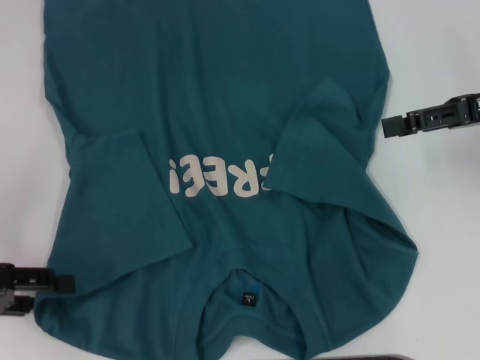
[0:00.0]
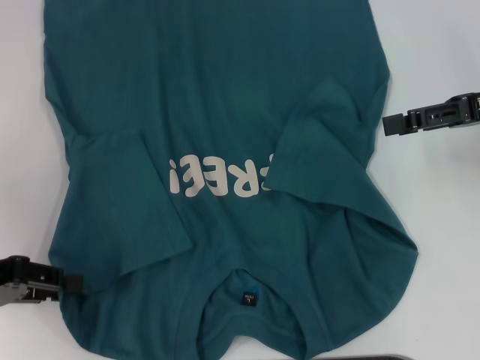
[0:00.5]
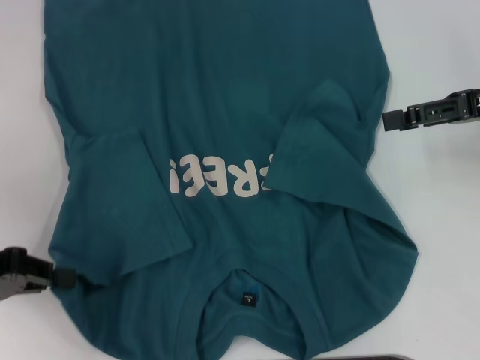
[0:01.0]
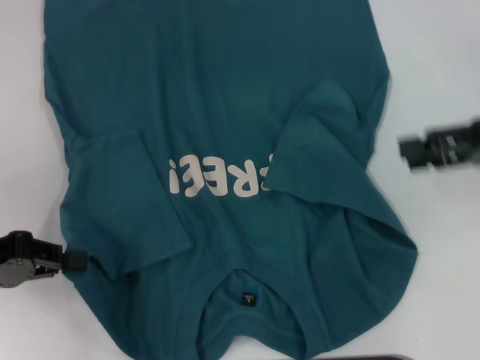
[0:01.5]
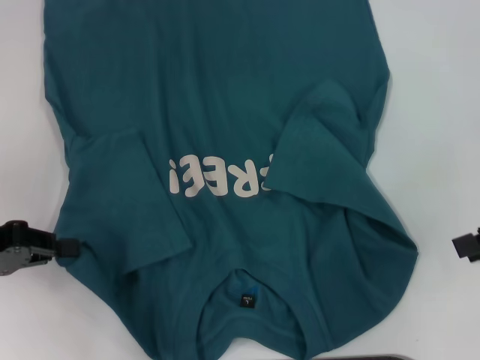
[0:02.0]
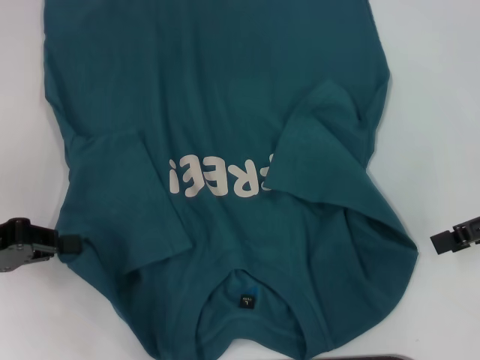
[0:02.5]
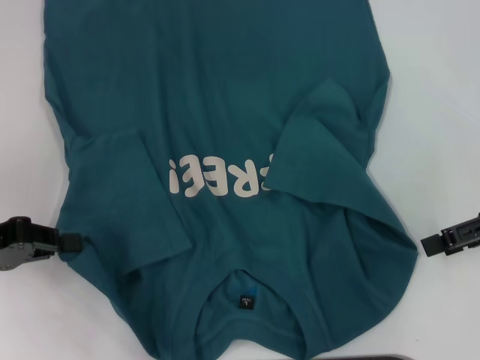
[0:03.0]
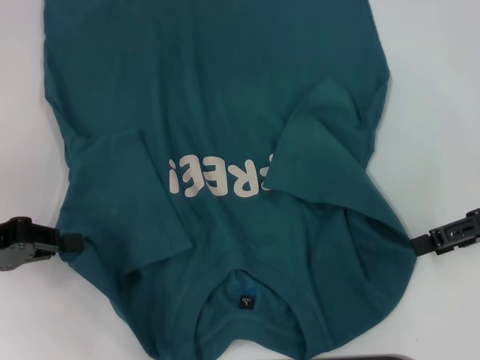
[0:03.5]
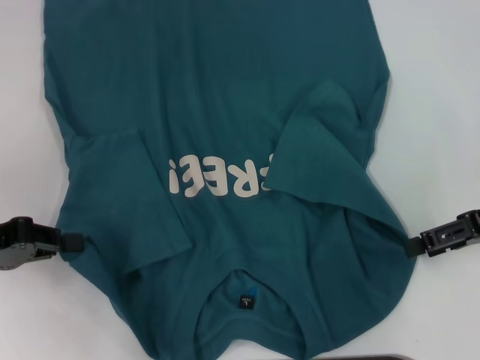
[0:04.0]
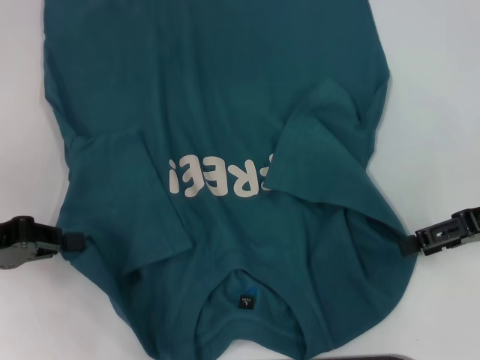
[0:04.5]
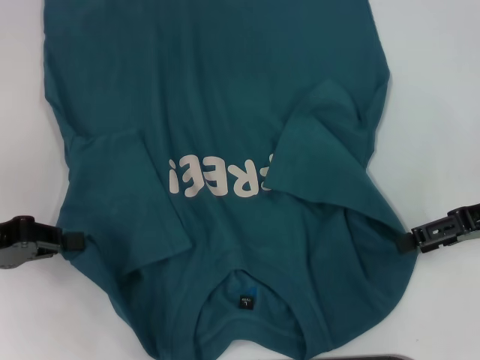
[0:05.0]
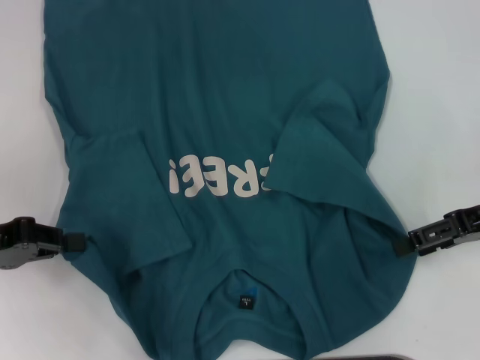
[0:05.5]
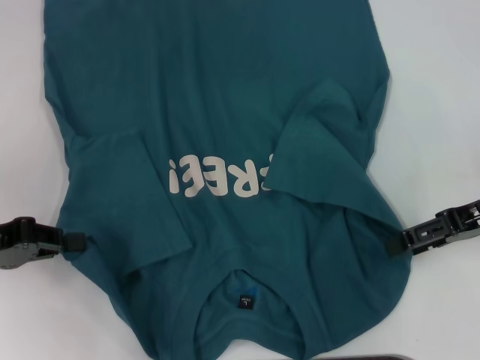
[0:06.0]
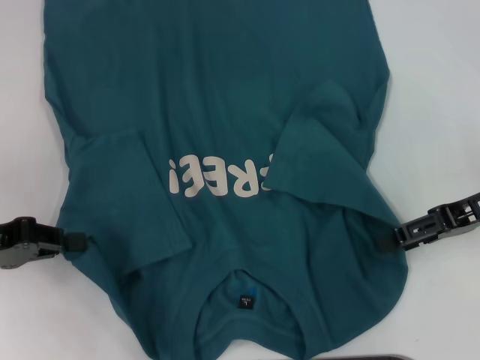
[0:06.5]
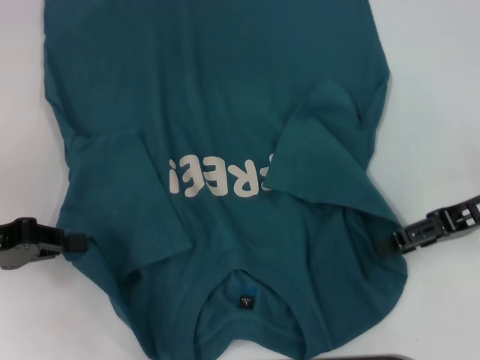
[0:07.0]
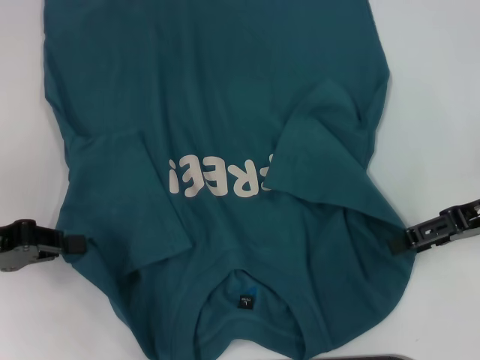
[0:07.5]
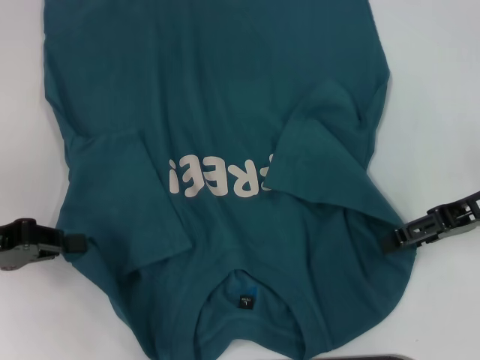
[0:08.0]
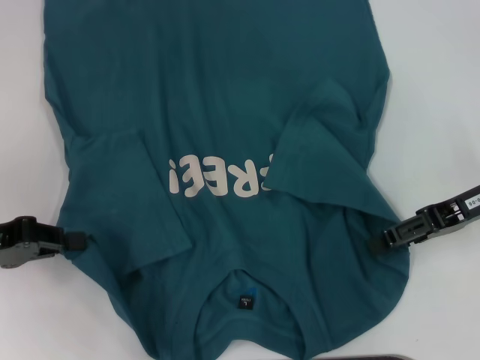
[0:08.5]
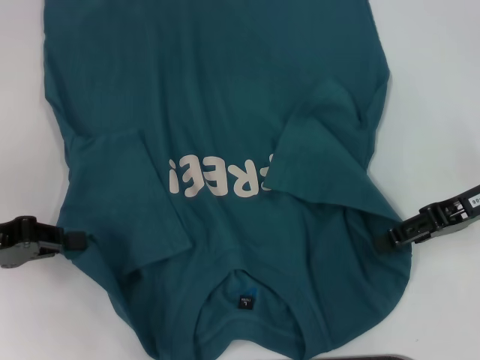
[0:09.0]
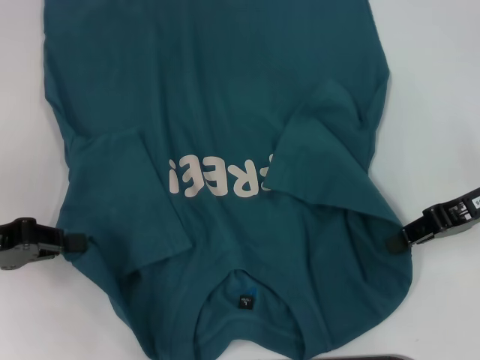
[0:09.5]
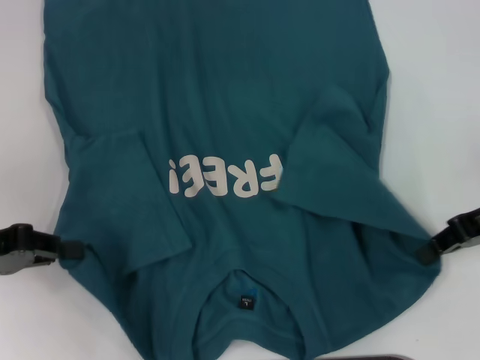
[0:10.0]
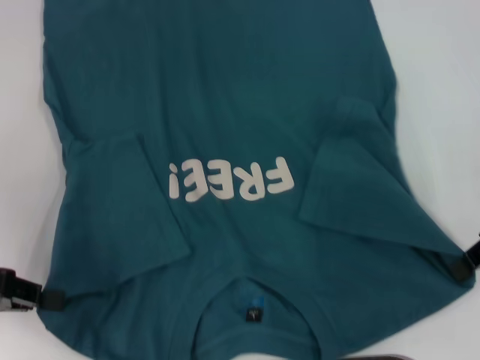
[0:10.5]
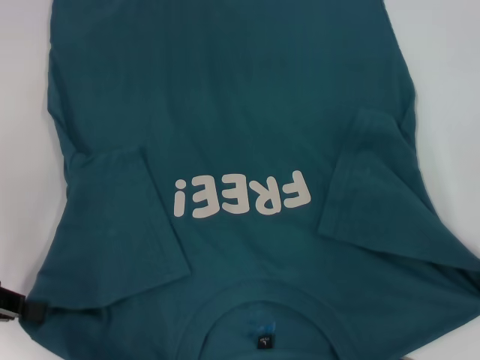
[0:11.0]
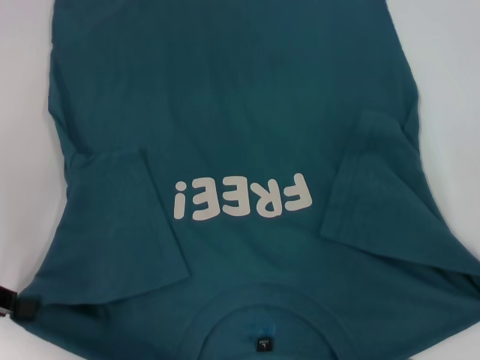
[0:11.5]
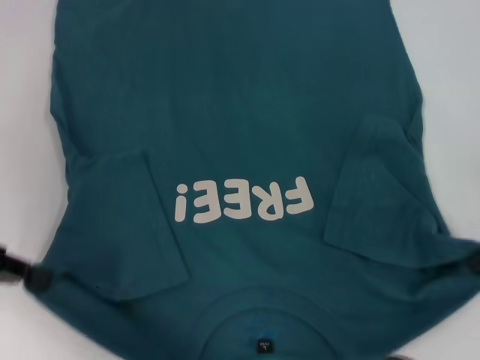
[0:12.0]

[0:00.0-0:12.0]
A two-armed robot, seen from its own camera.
Step, 0:02.0 to 0:10.0: Grab the bottom right corner with your right hand.
0:00.0 to 0:02.0: The right gripper moves backward, approximately 5 cm; the left gripper closes its fingers.
0:02.0 to 0:04.0: The right gripper shifts by some 5 cm.
0:04.0 to 0:06.0: The grippers stay close to where they were, moving slightly.
0:06.0 to 0:08.0: Both grippers stay put.
0:08.0 to 0:10.0: The right gripper closes.

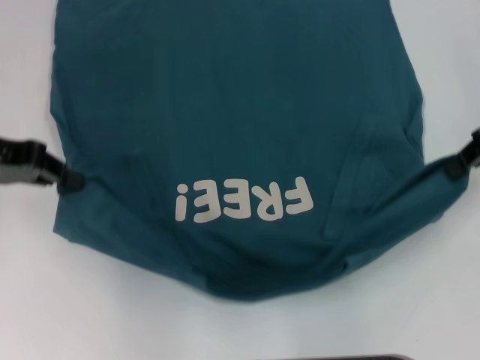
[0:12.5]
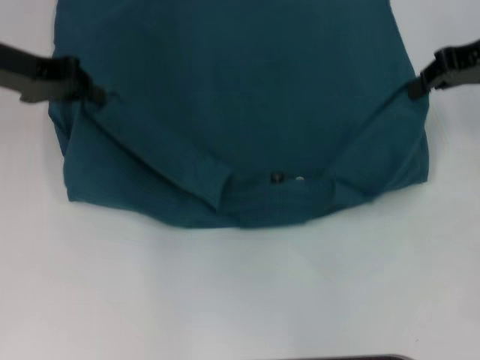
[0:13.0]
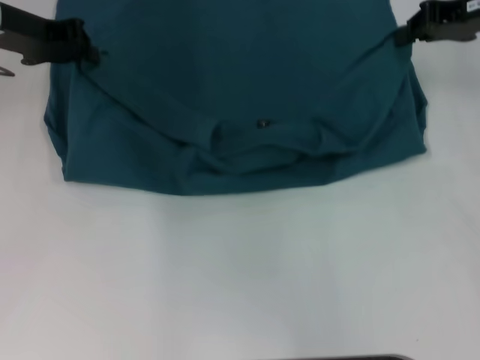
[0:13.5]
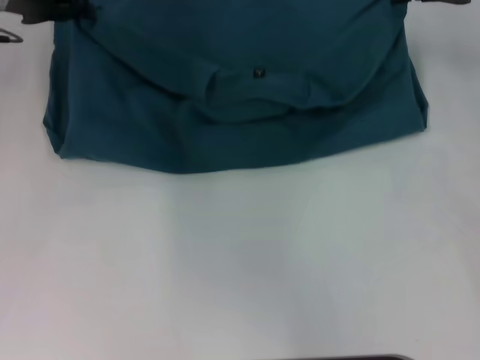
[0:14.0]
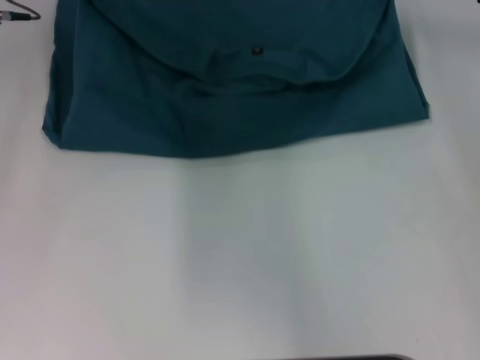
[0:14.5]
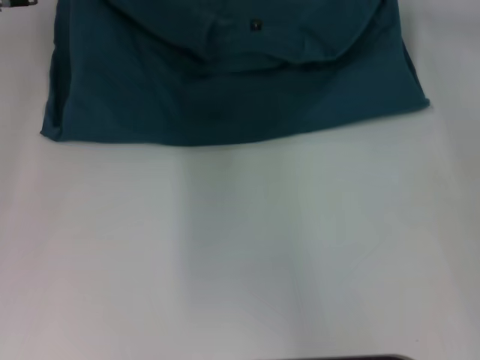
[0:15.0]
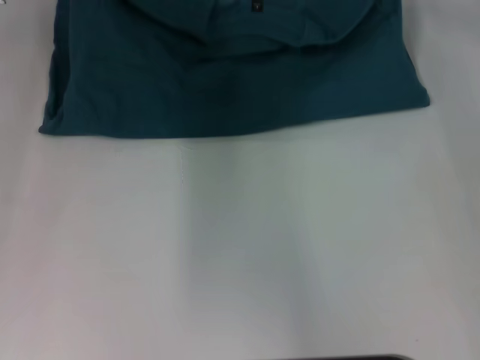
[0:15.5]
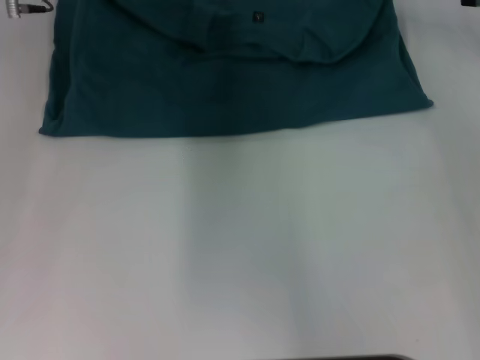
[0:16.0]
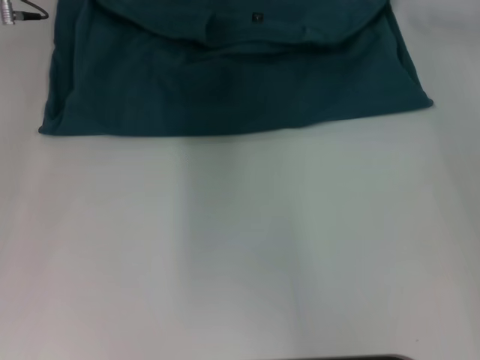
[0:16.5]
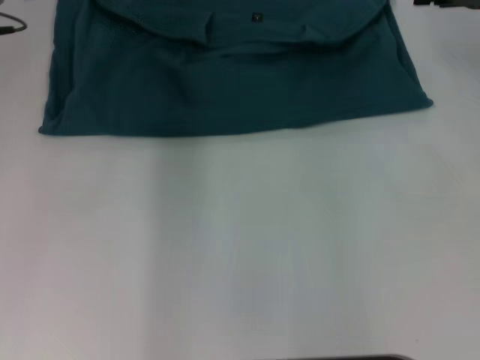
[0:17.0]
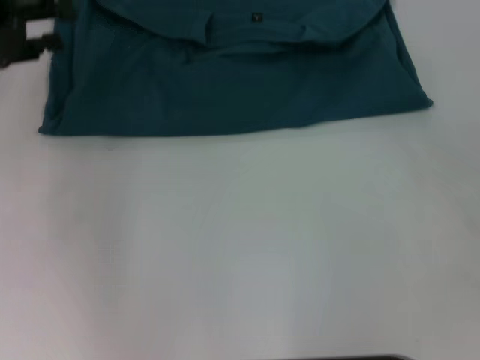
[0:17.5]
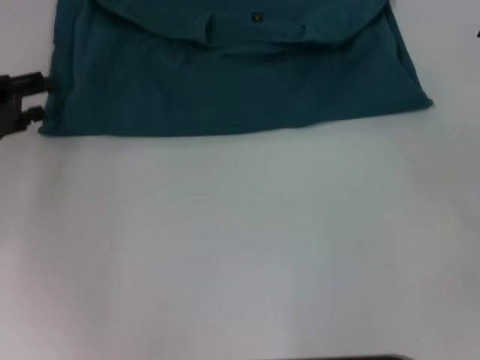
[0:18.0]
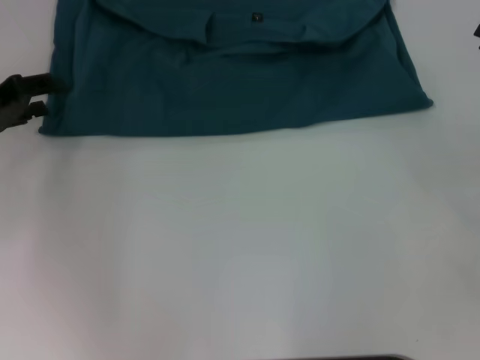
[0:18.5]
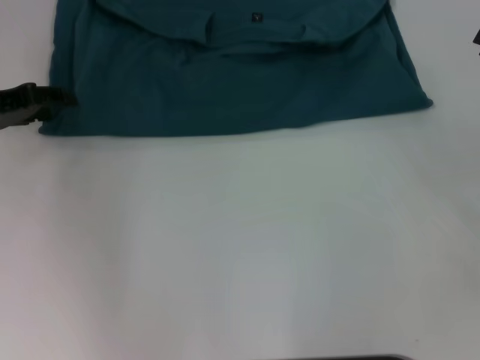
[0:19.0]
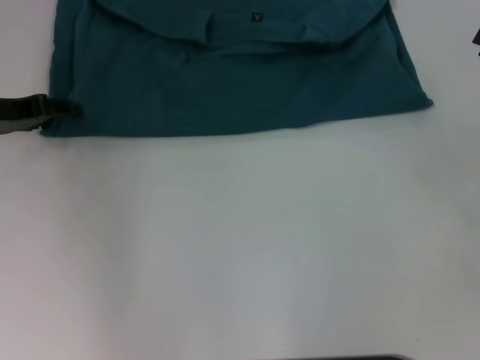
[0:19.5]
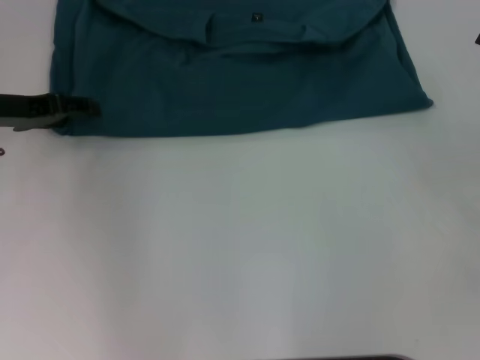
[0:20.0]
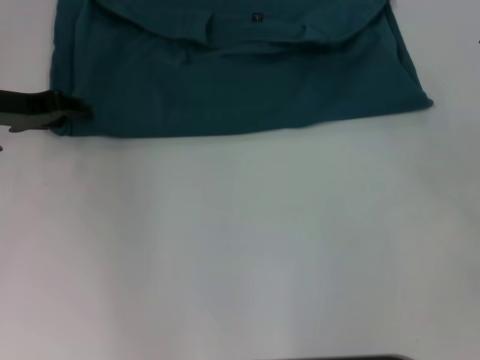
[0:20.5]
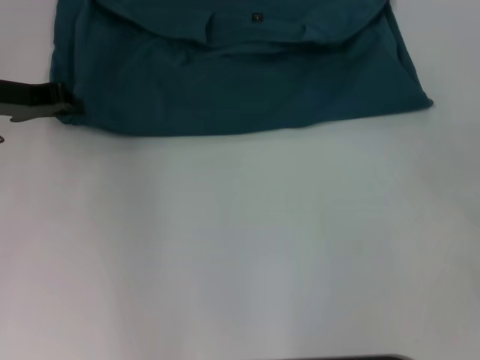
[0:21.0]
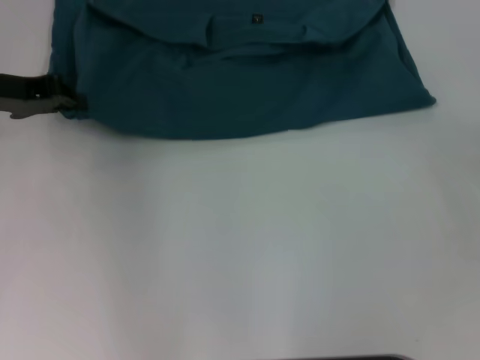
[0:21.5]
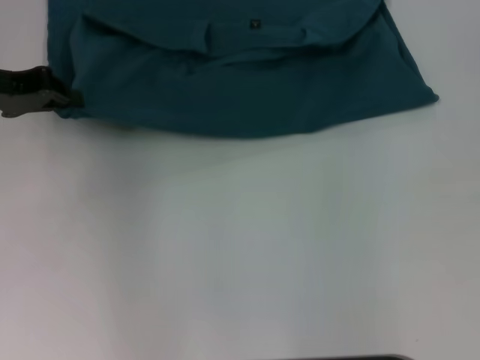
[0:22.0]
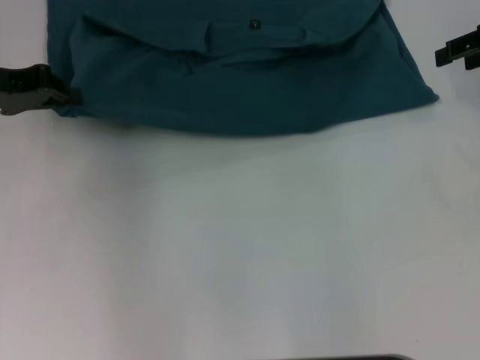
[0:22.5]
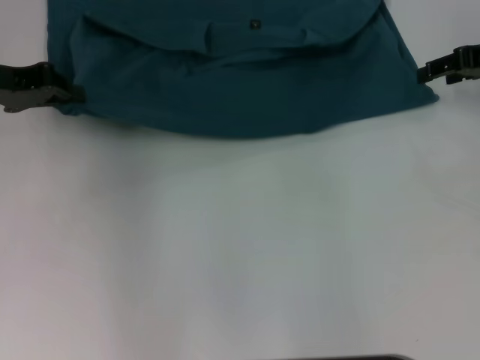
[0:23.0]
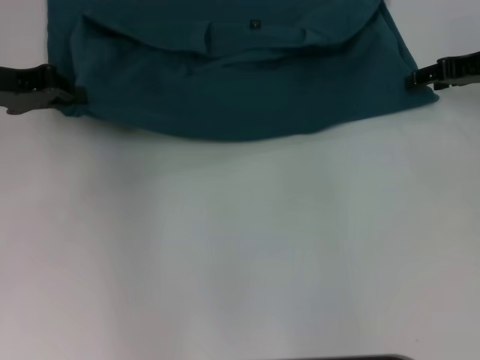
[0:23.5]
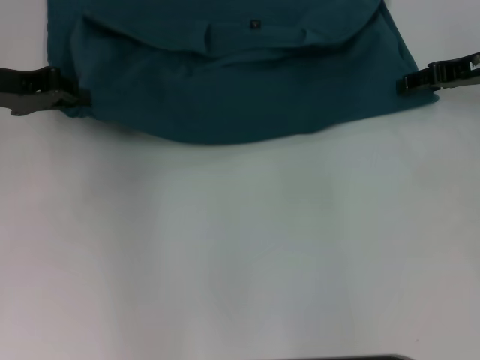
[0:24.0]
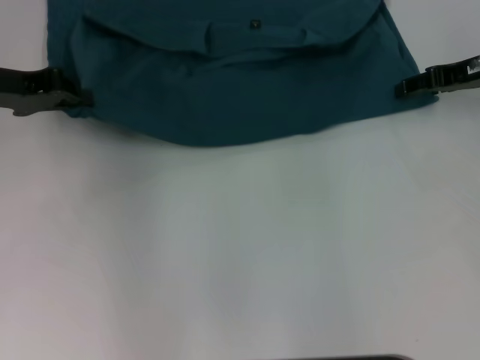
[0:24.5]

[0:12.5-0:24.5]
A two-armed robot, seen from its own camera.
Step, 0:12.5 to 0:17.5: Fold the clothes to the left.
Step, 0:12.5 to 0:17.5: Fold the clothes to the right.
0:12.5 to 0:14.5: The right gripper is displaced forward and to the left by roughly 15 cm; the left gripper goes roughly 15 cm forward and to the right.
0:14.5 to 0:16.5: The left gripper opens up.
0:16.5 to 0:18.5: The right gripper is displaced backward and to the right by roughly 25 cm, and opens its fingers, while the left gripper heads to the left, backward and downward, covering roughly 20 cm.
0:20.5 to 0:22.5: The right gripper moves forward and upward, some 15 cm. The left gripper closes up.
0:22.5 to 0:24.5: The right gripper is displaced downward by approximately 5 cm.

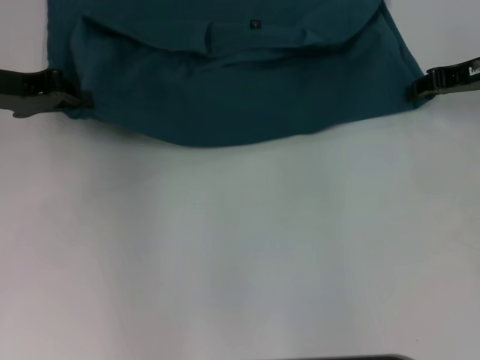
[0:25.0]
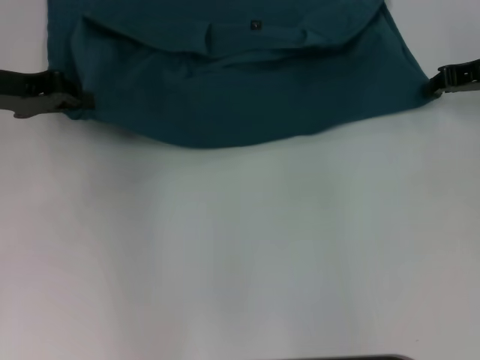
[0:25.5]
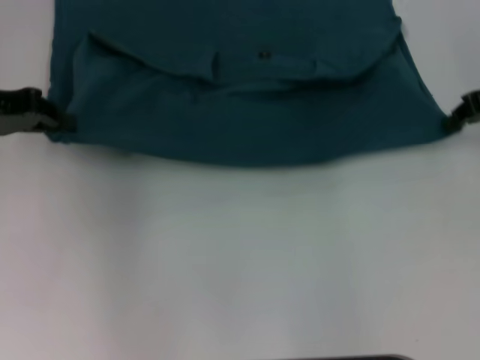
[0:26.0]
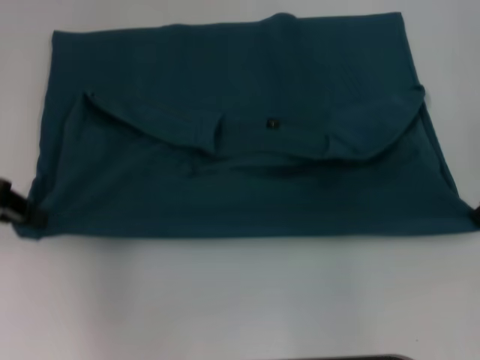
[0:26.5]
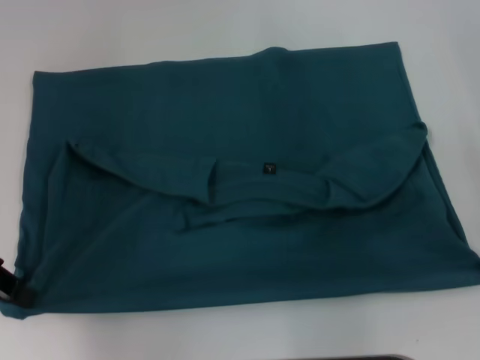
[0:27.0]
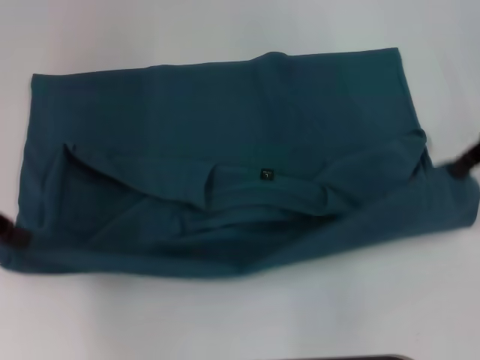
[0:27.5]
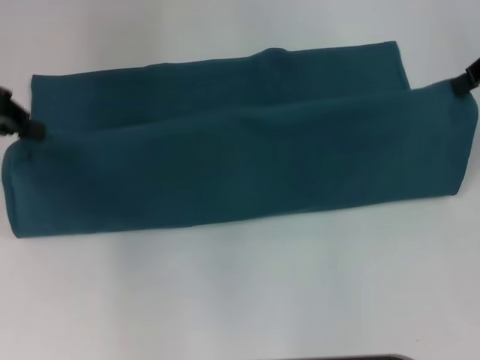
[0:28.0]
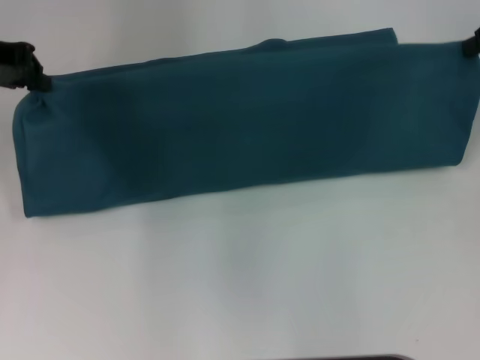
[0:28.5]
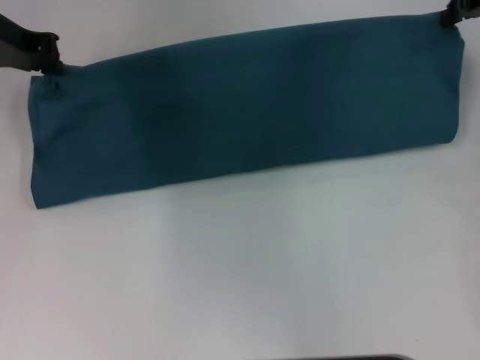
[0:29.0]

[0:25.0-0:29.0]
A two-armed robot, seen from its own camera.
Step, 0:25.0 to 0:27.0: Pull the clothes with your left hand.
Step, 0:25.0 to 0:27.0: Pull the clothes with your right hand.
0:25.0 to 0:27.0: The two grippers go about 10 cm backward. The right gripper closes.
0:27.0 to 0:29.0: The right gripper heads forward and upward, covering about 15 cm; the left gripper travels forward and to the right by roughly 15 cm.
